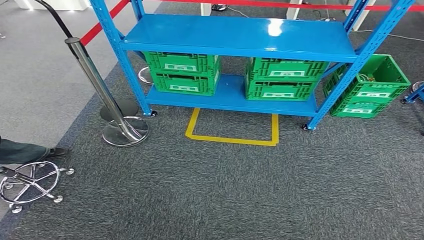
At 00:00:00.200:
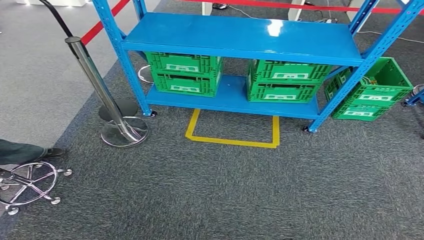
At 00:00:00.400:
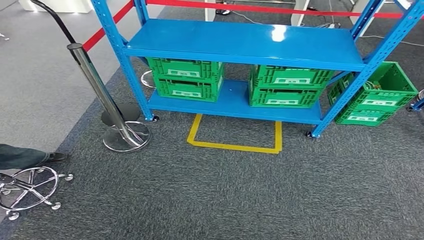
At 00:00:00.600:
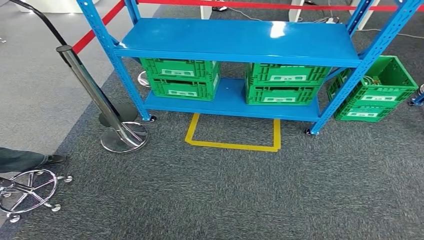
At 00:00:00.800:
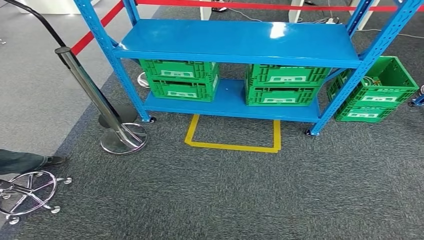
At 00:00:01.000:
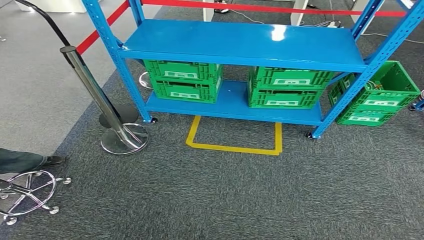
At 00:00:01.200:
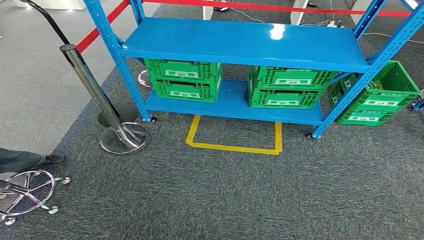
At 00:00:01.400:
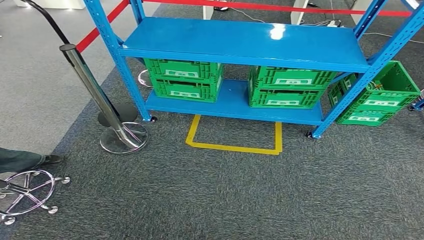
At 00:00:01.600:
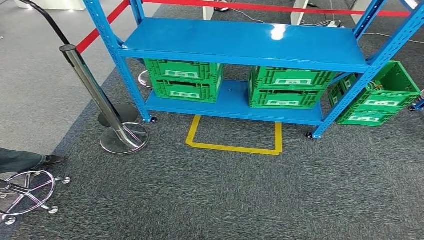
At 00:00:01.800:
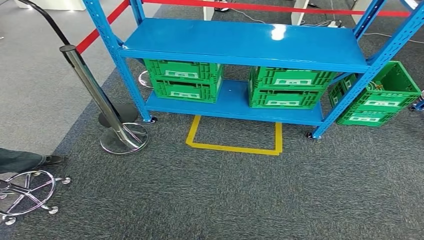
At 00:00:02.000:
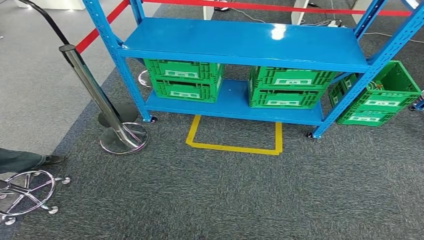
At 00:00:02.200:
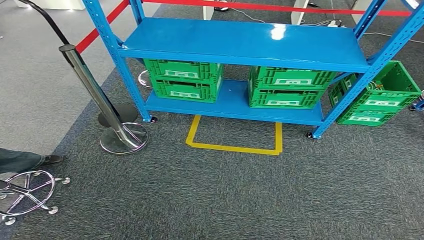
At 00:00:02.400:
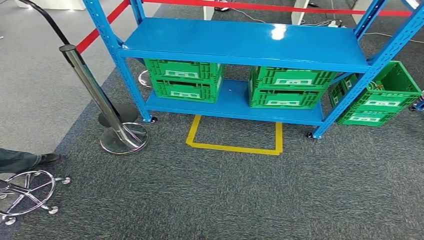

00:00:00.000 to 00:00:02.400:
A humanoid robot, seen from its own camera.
Step, 00:00:00.000 to 00:00:02.400: Return to the initial position at the workbench.
00:00:01.200 to 00:00:02.400: The right hand shifts by approximately 5 cm.
